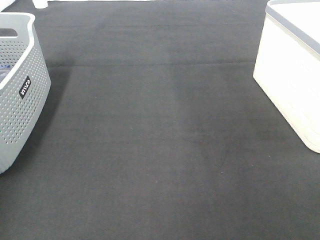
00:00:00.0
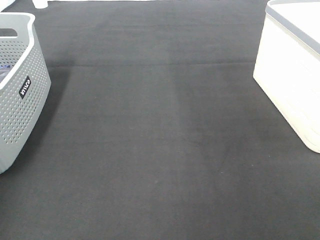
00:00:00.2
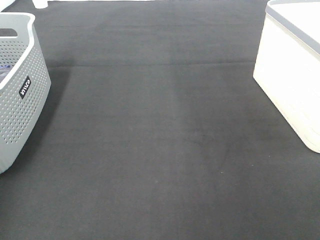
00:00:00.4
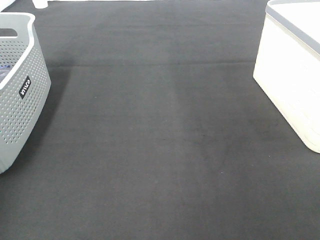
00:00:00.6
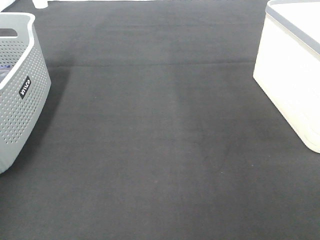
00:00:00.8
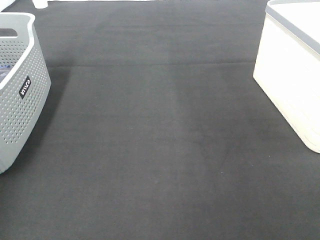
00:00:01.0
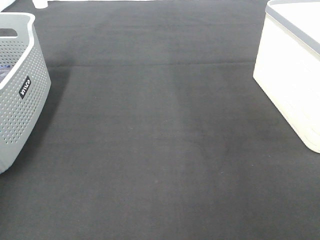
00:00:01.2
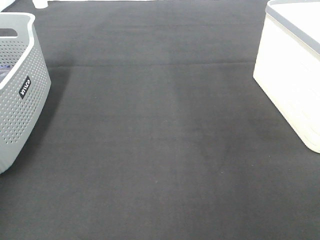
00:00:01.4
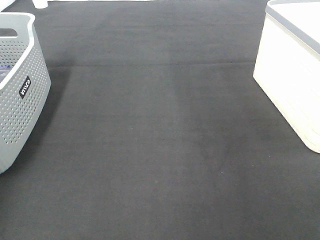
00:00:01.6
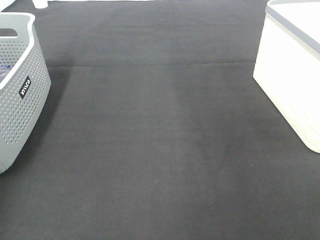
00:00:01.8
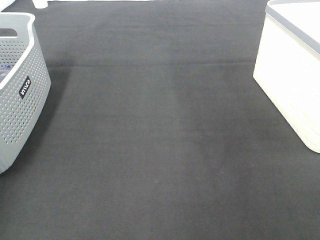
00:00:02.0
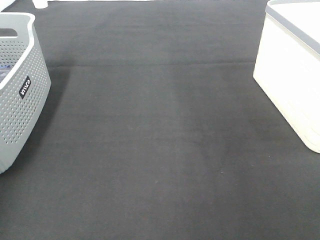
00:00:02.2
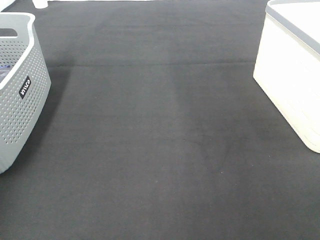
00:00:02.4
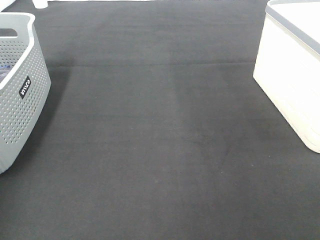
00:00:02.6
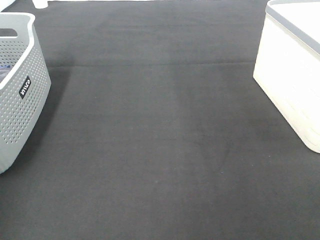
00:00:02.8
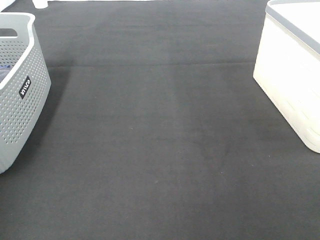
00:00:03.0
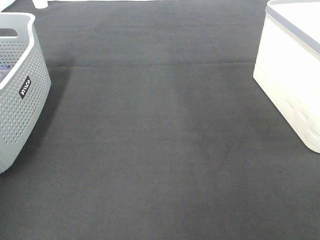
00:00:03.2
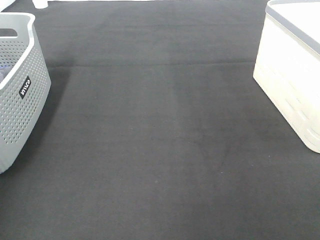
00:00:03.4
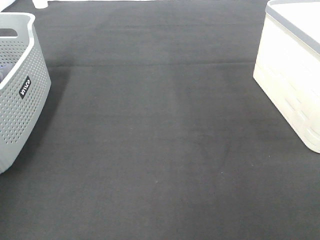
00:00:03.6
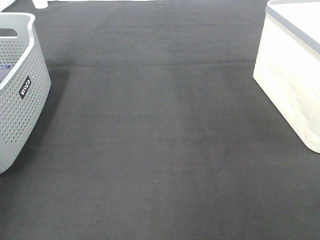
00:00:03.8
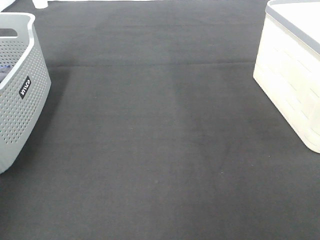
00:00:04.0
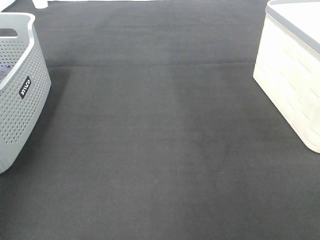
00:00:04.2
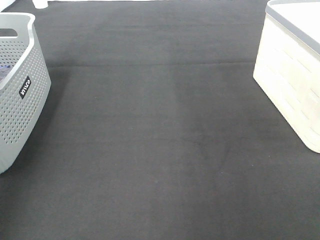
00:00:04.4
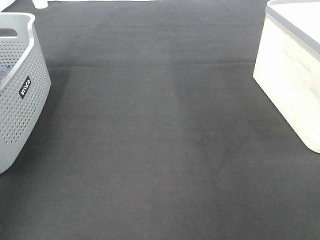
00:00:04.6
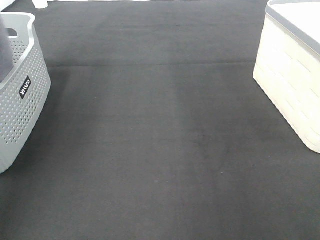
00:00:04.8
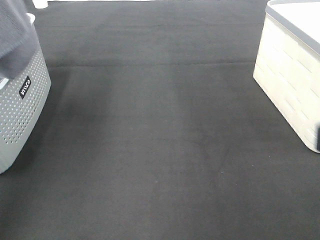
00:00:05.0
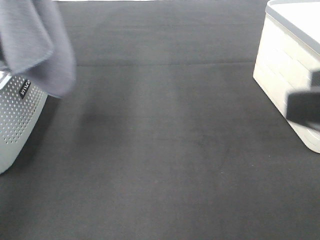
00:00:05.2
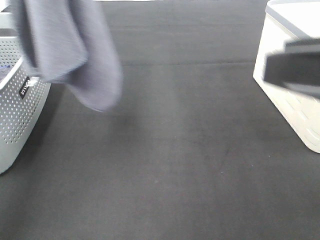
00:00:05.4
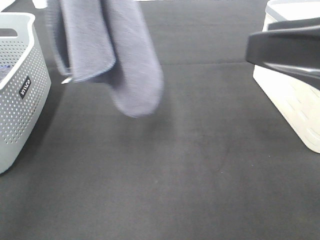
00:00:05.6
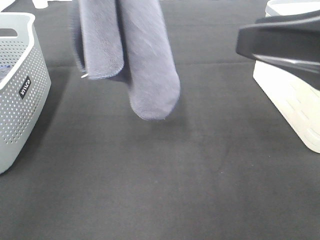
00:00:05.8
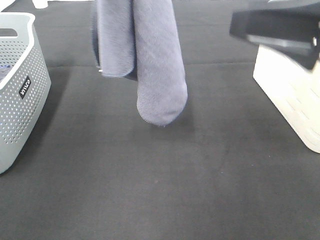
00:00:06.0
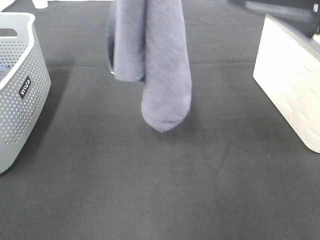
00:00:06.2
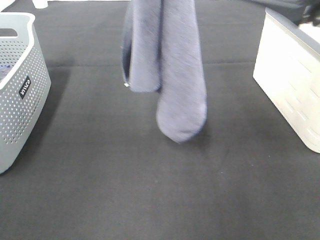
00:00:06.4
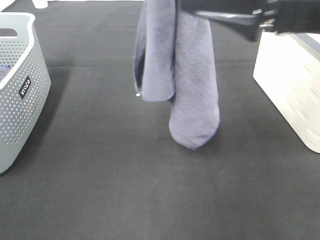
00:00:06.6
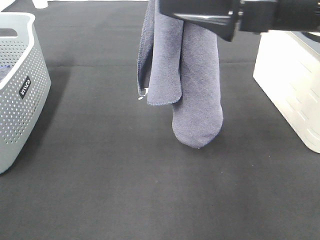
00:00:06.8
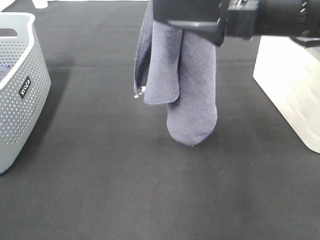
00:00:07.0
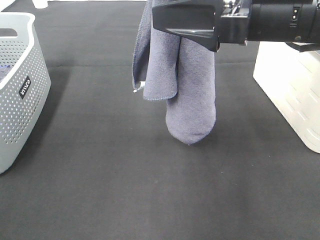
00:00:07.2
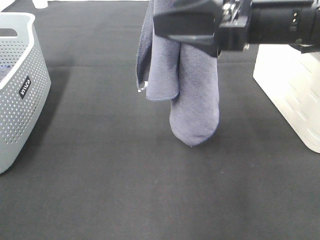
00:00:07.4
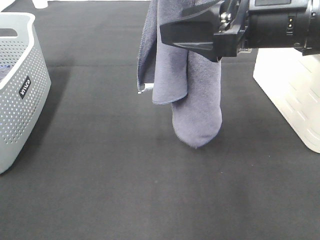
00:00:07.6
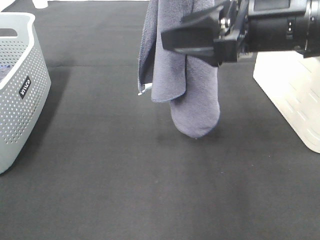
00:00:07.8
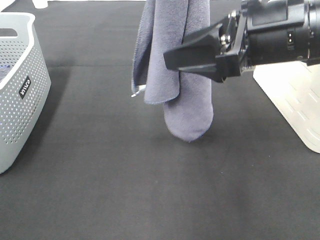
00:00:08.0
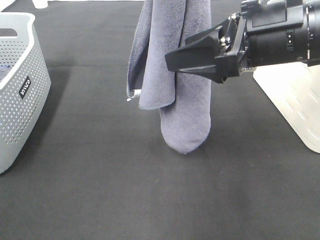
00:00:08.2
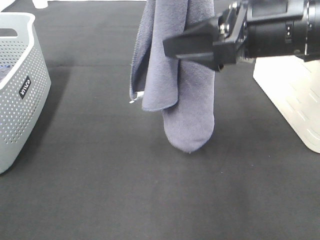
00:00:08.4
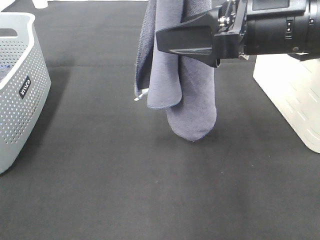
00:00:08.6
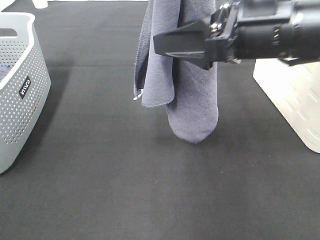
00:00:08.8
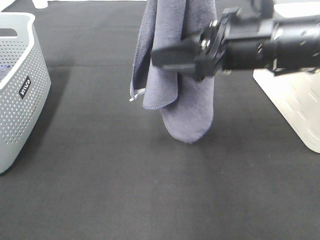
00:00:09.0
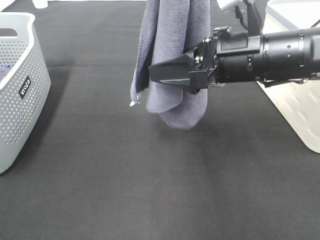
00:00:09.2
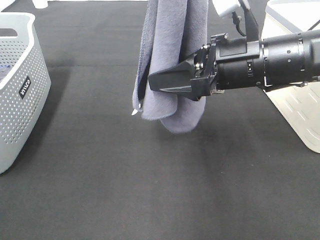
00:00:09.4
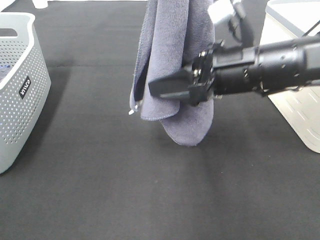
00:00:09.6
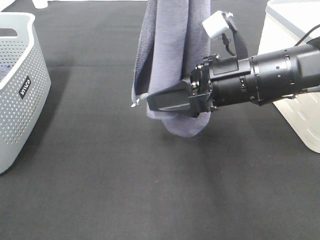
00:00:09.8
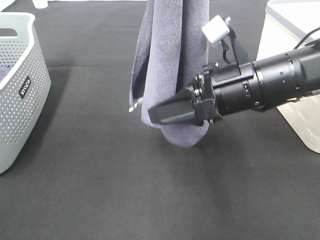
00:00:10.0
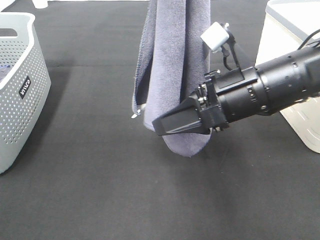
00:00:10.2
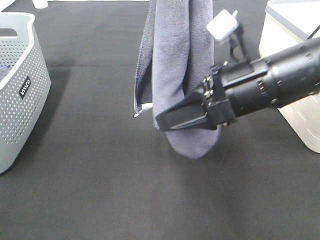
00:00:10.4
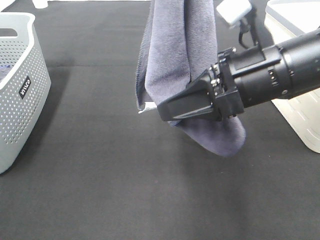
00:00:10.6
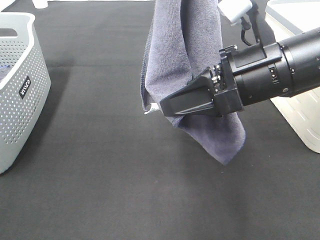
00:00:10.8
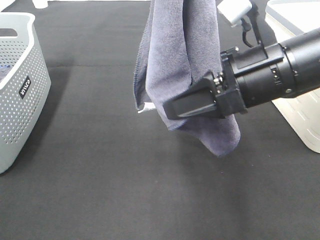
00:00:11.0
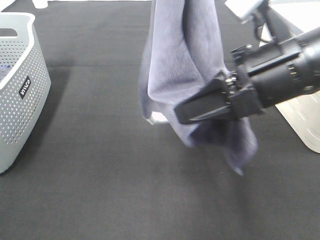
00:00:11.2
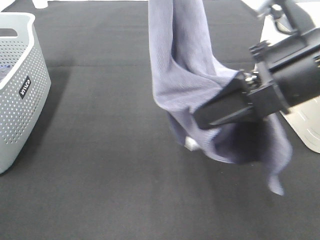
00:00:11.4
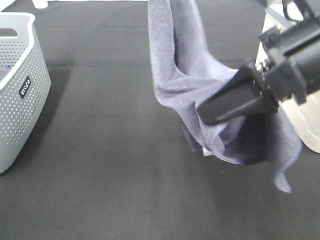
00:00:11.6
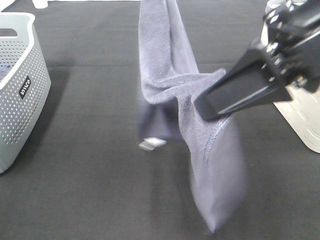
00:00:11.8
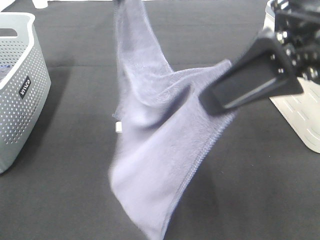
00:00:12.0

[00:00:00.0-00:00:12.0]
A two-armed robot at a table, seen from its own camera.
Task of the whole recording: Remove the towel and place it.
Step, 00:00:03.4 to 00:00:09.4: Right hand: grab a corner of the grey towel and straighten it.
00:00:04.4 to 00:00:06.0: The right gripper shifts roughly 20 cm forward and to the left. Meanwhile the left gripper moves to the right, roughly 20 cm.
00:00:06.0 to 00:00:07.6: The right gripper shifts roughly 10 cm forward and to the left, while the left gripper moves to the right, about 5 cm.
00:00:07.6 to 00:00:09.0: The right gripper changes place by roughly 5 cm.
00:00:09.0 to 00:00:10.4: The right gripper closes.
00:00:10.4 to 00:00:12.0: The left gripper travels downward by about 5 cm. Meanwhile the right gripper moves upward, some 10 cm, and closes up.

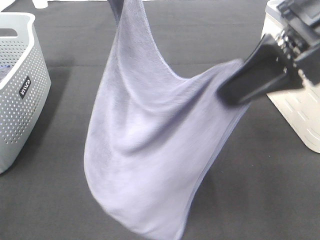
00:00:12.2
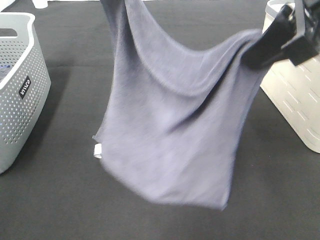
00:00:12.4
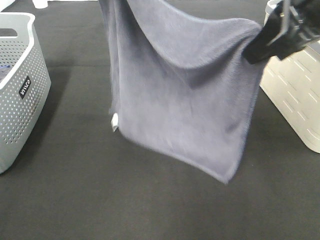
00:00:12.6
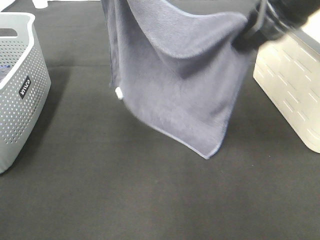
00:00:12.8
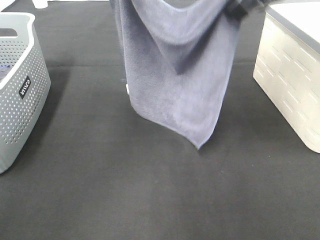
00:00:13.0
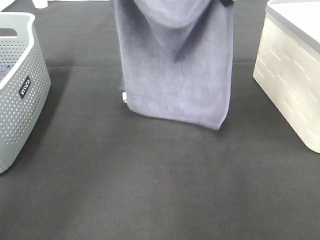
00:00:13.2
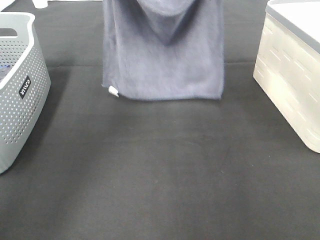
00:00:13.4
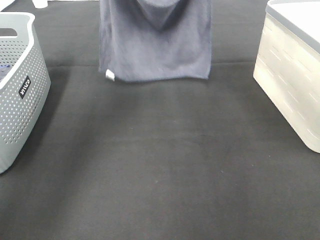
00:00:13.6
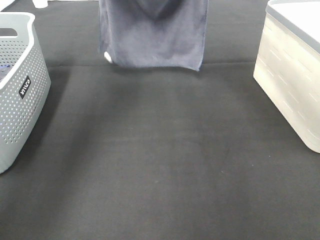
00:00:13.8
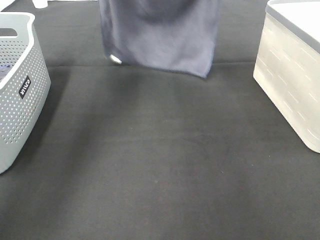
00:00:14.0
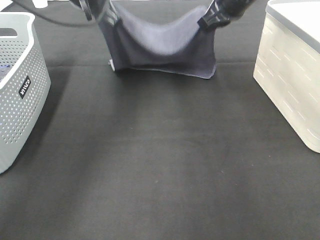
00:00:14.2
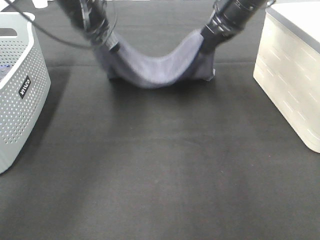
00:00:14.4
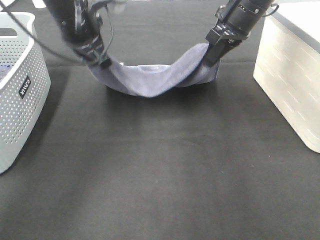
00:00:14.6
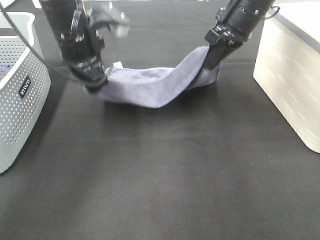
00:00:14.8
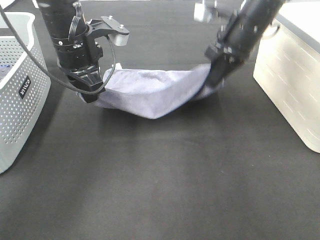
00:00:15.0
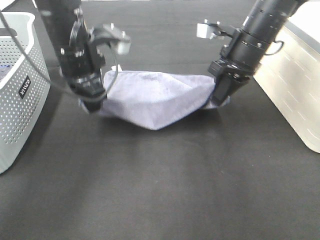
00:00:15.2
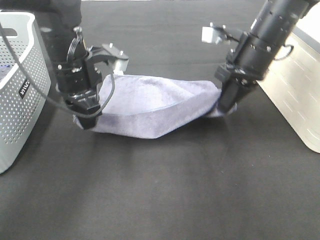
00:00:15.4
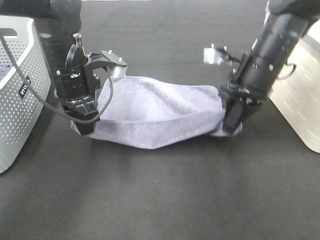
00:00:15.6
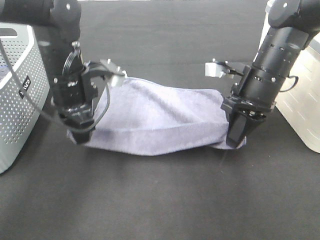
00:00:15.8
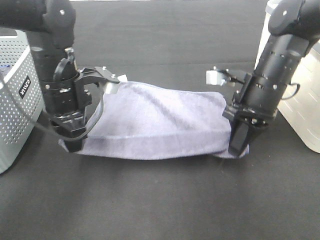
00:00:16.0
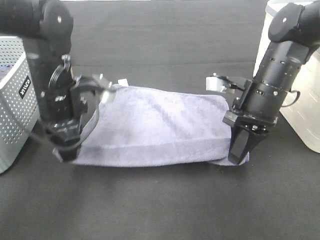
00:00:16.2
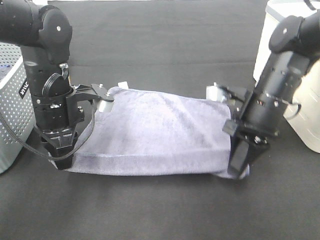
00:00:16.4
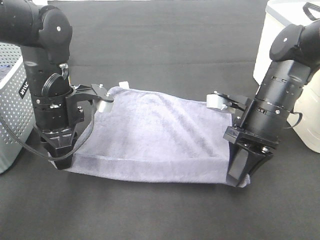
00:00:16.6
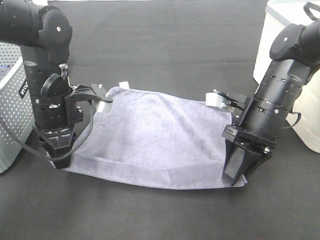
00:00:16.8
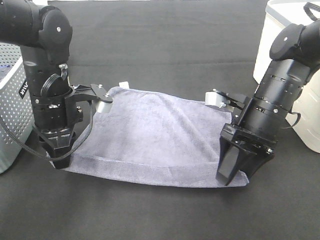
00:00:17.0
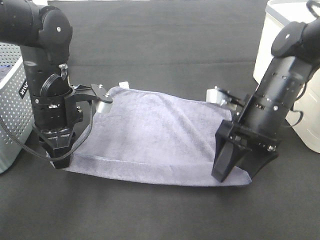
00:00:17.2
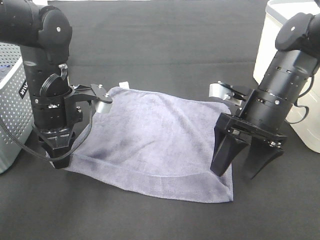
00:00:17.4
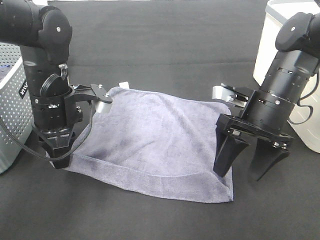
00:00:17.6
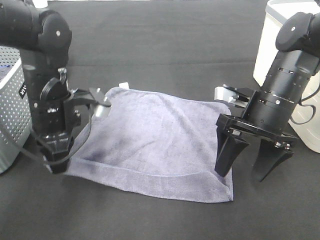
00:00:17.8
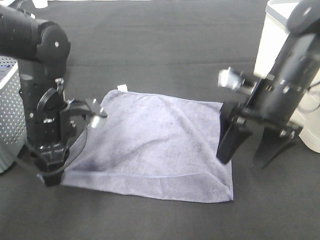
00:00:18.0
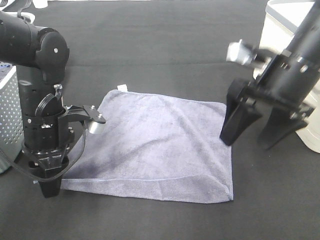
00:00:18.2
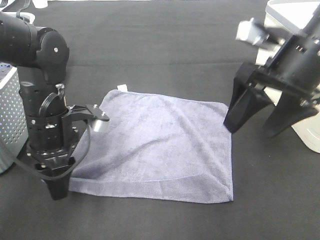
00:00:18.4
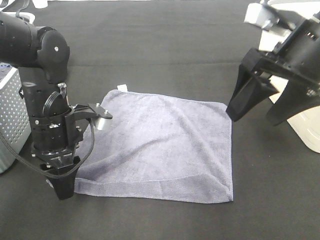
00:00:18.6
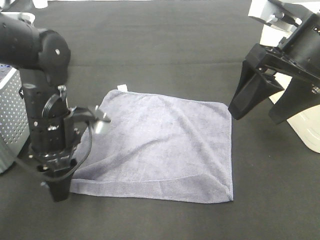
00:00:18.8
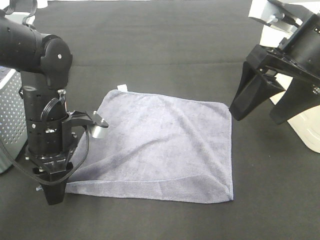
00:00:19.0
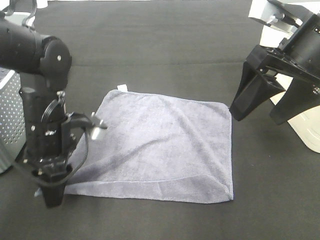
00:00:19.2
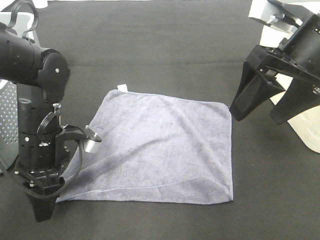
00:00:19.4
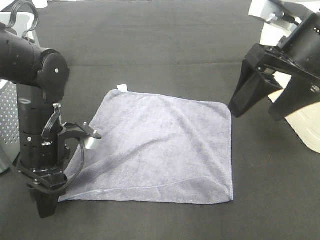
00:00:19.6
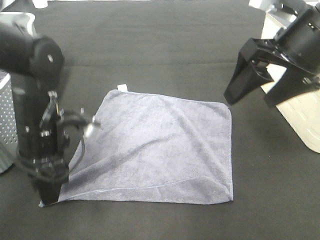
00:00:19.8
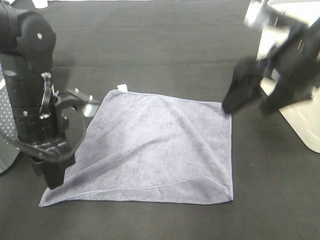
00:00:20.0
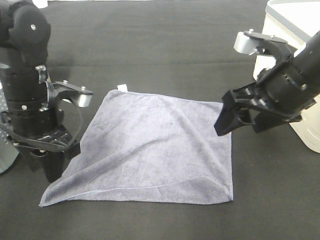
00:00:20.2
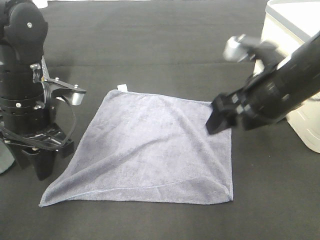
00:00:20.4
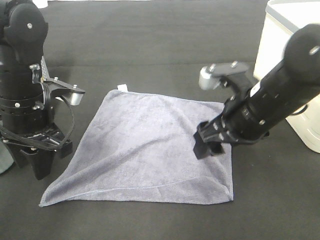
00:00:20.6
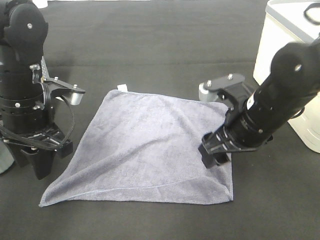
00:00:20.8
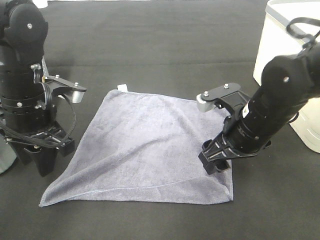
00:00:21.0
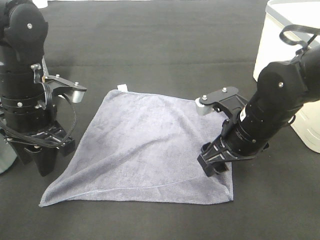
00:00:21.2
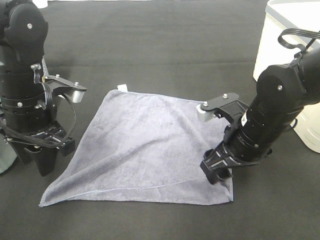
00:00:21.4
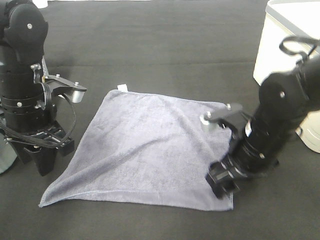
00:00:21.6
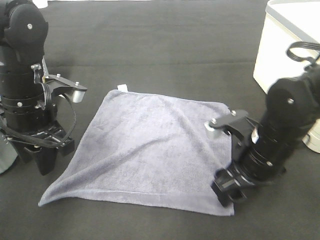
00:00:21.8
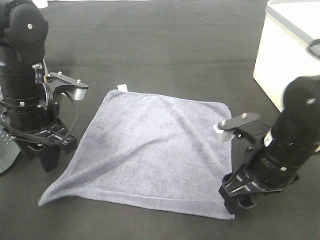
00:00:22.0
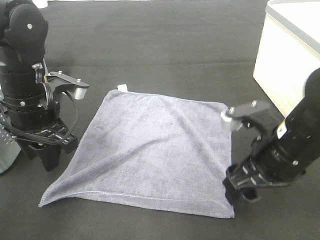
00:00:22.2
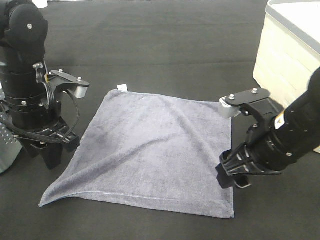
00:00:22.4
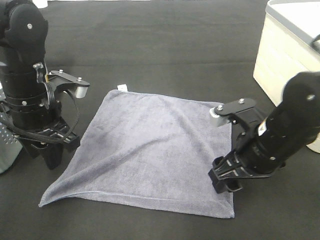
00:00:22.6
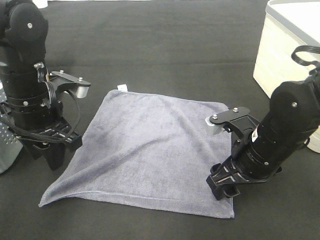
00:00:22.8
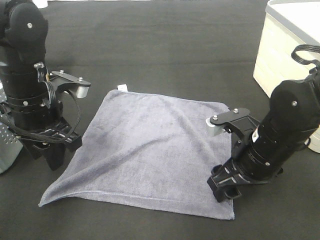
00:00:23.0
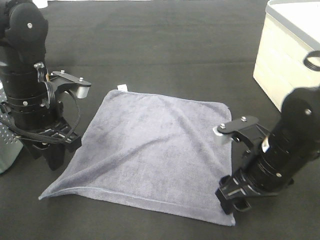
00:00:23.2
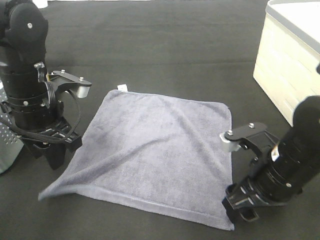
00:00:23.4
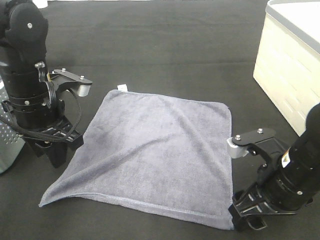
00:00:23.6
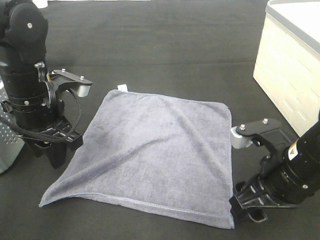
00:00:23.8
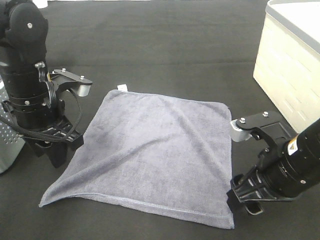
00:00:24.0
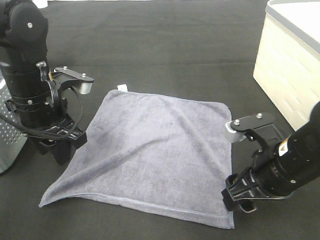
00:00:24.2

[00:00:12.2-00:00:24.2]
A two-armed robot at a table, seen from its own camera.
Task of the whole recording: Remove the towel and place it.
Step, 00:00:14.2 to 00:00:19.0: Right hand:adjust the gray towel.
00:00:12.2 to 00:00:13.8: The left gripper travels forward by roughly 15 cm; the right gripper is displaced forward by some 25 cm.
00:00:13.8 to 00:00:15.2: The grippers both shift downward and backward by some 15 cm.
00:00:15.2 to 00:00:16.6: The right gripper is displaced backward and downward by roughly 10 cm, while the left gripper goes about 5 cm backward and downward.
00:00:16.6 to 00:00:18.2: The right gripper moves upward, about 10 cm, and opens its fingers. The left gripper opens up.
00:00:18.2 to 00:00:19.8: The right gripper is displaced upward by about 5 cm.
00:00:19.8 to 00:00:21.2: The right gripper goes about 15 cm downward.
00:00:22.6 to 00:00:24.2: The grippers stay close to where they were, moving slightly.
